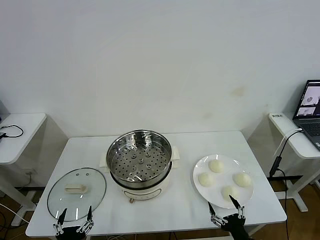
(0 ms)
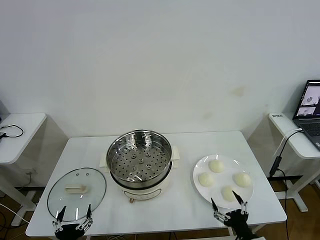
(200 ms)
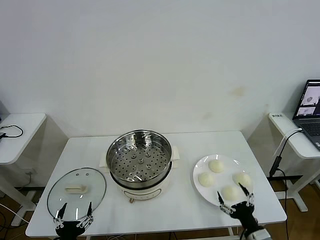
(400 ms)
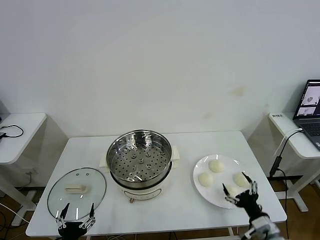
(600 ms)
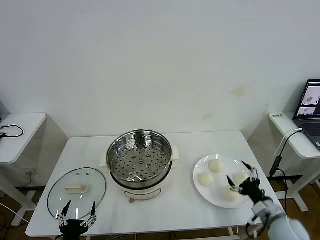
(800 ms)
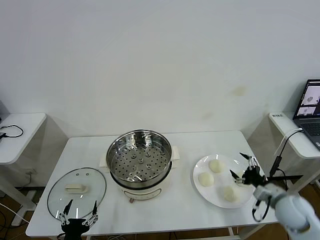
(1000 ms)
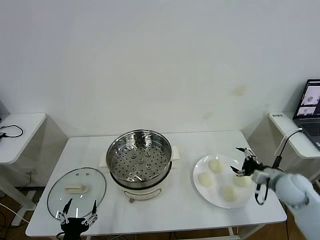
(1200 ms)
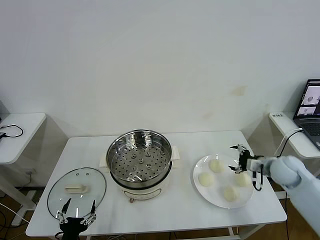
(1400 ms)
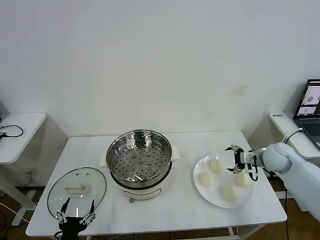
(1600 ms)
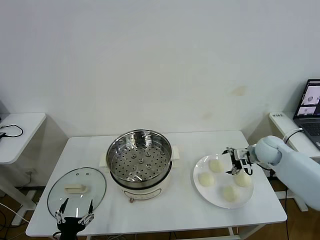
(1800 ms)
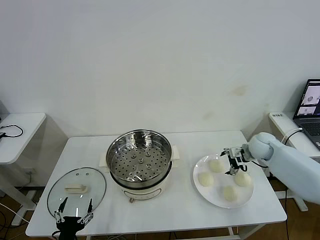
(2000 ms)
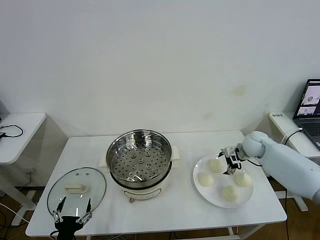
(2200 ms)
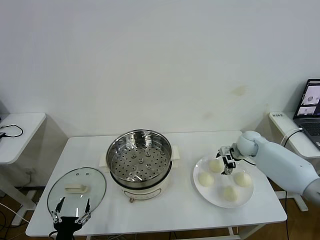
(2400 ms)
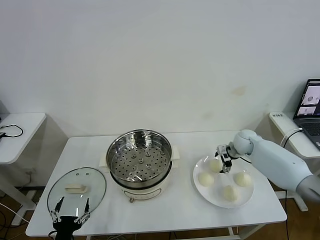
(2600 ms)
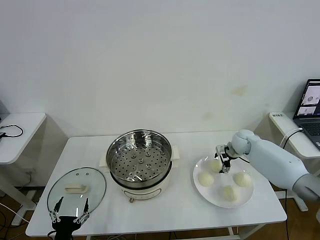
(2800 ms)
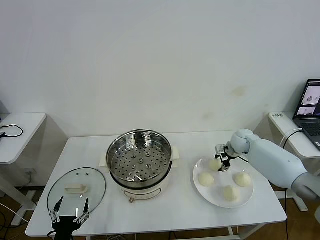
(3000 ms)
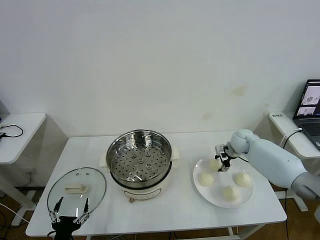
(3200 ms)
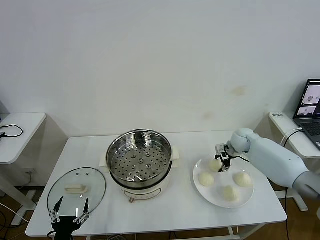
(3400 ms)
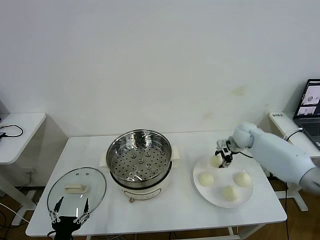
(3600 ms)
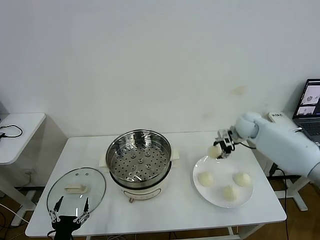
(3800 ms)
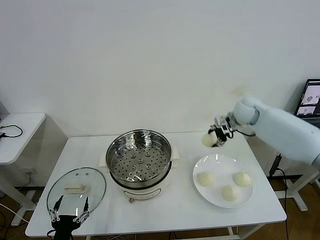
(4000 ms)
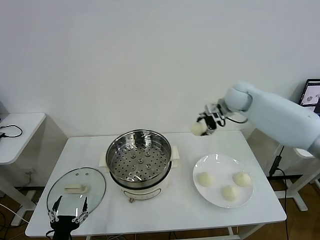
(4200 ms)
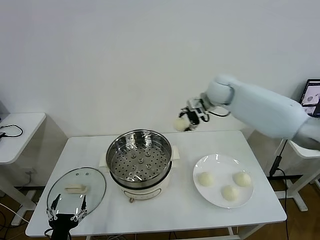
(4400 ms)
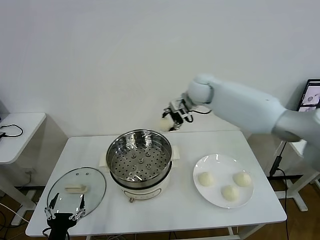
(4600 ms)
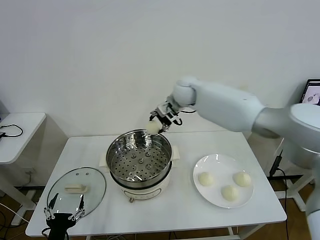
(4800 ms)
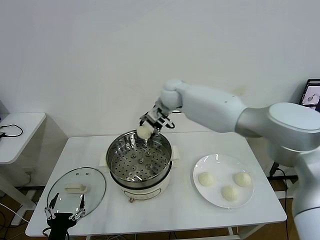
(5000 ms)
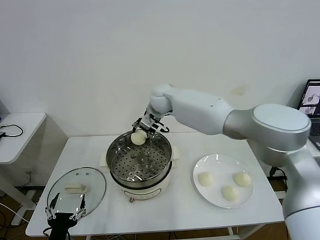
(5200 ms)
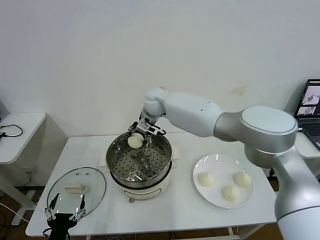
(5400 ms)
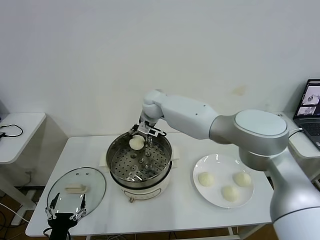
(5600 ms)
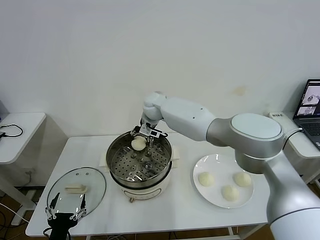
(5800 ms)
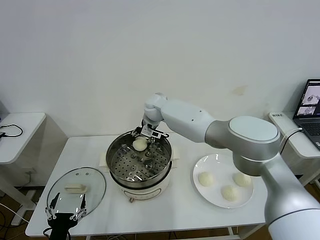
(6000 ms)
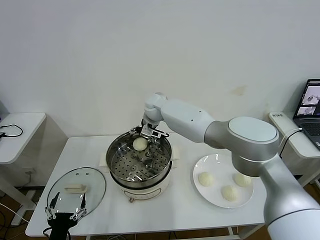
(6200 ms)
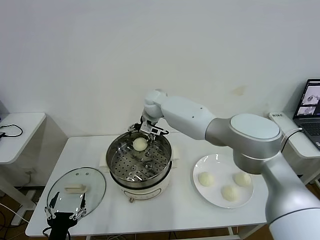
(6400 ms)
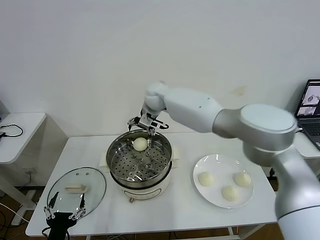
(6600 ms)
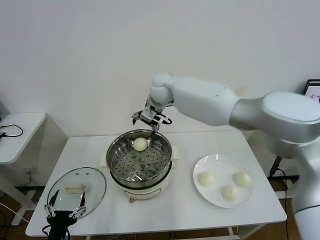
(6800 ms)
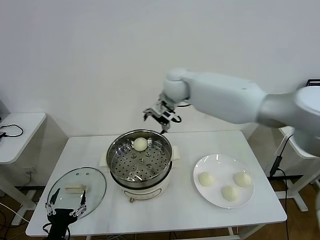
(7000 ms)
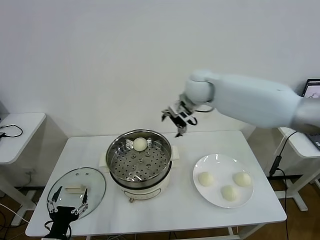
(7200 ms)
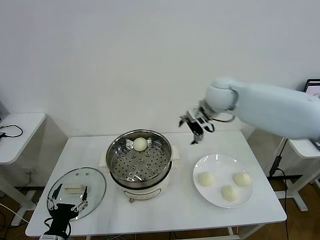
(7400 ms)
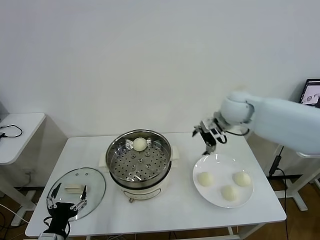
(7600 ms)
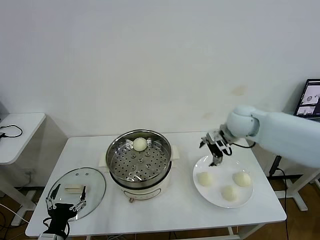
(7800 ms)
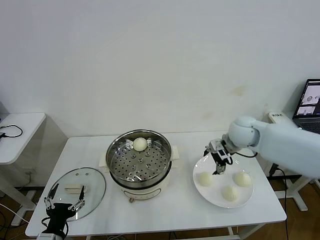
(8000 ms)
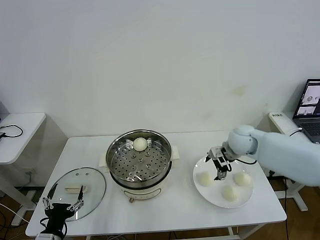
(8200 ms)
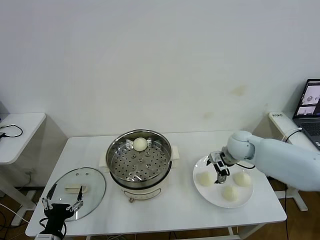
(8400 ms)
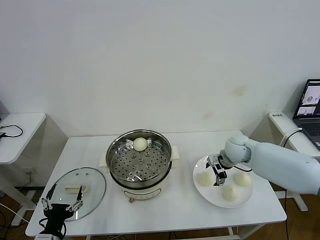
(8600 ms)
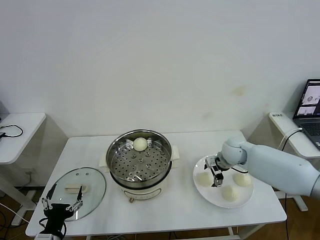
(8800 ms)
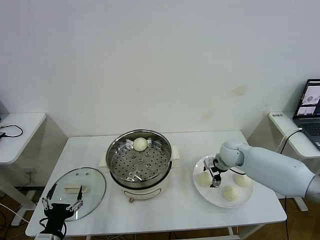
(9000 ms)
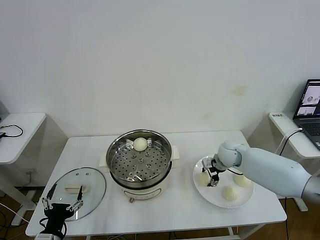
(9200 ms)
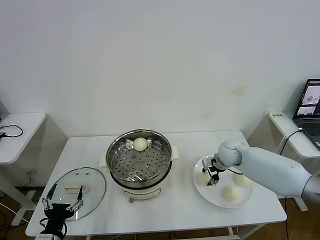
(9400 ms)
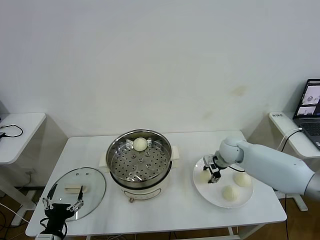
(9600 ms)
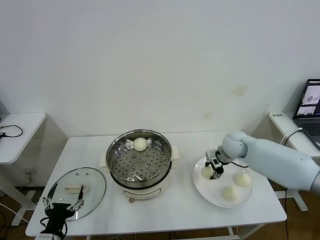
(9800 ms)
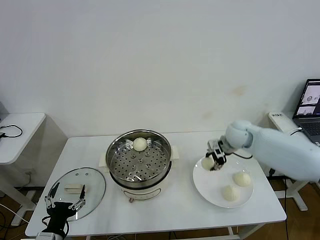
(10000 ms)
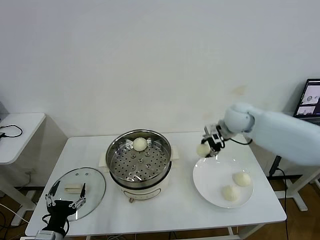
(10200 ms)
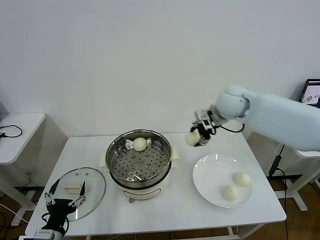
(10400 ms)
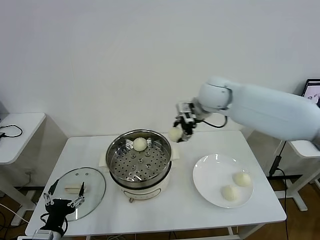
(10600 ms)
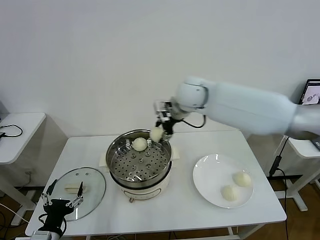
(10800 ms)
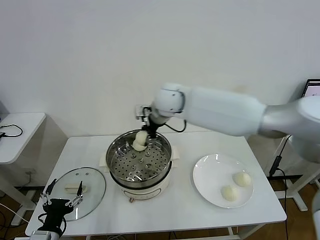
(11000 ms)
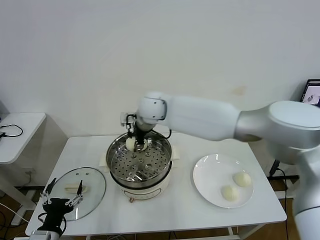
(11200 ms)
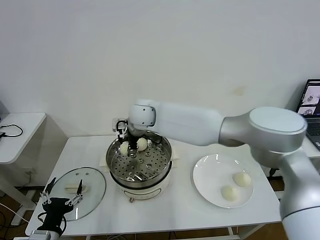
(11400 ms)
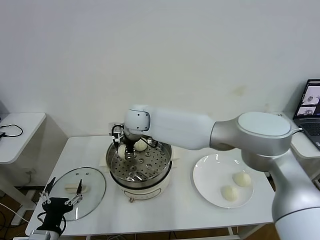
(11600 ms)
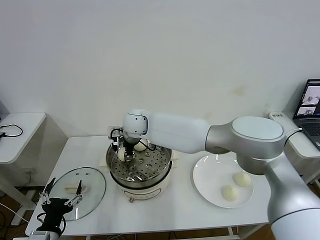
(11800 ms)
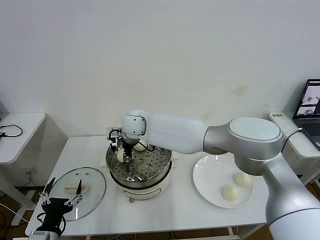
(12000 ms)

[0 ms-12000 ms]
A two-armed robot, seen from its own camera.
Task of the whole recording: take steamed baozi put them in steamer then cover it.
Step, 0 ms to 2800 ms: Grasp the baozi in the plate with right gripper.
Step, 3200 ms to 6000 ms: Place the baozi on the steamer with right gripper.
Step, 6400 ms to 9200 ms: Grasp the baozi in the plate with right gripper.
1600 ms to 3000 ms: The right gripper shifts some 10 cm forward and to the left, and closes.
3000 ms to 4400 ms: The right gripper moves upward and to the left, about 30 cm.
4400 ms to 6000 ms: The right gripper shifts roughly 20 cm to the left and downward, and opens up.
6000 ms to 7600 ms: The right gripper travels to the right and backward by roughly 30 cm.
7600 ms to 9000 ms: The right gripper is displaced downward by about 15 cm, and closes.
9000 ms to 10400 ms: The right gripper heads upward, covering approximately 25 cm, and closes its fingers.
10400 ms to 12000 ms: The right gripper shifts some 25 cm to the left, and opens up.

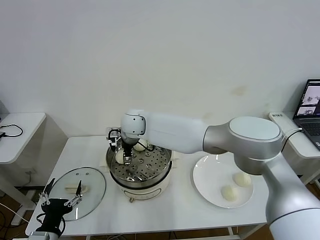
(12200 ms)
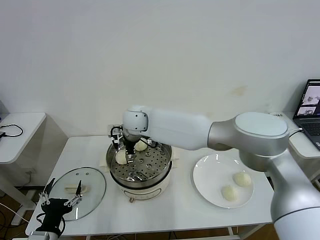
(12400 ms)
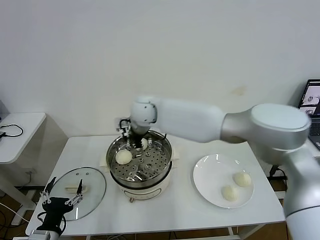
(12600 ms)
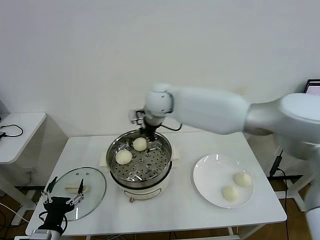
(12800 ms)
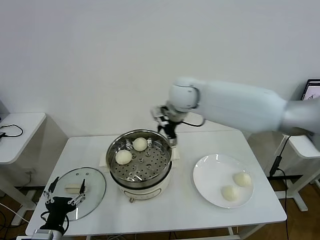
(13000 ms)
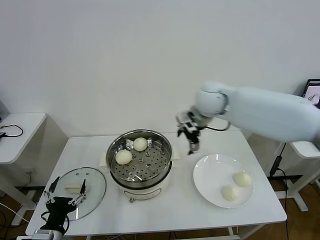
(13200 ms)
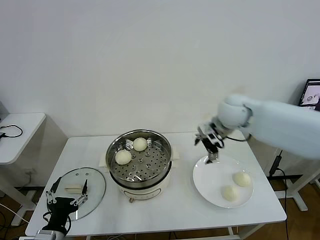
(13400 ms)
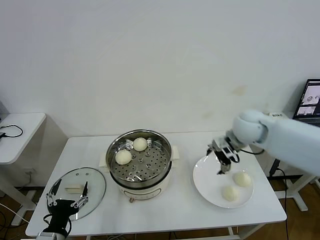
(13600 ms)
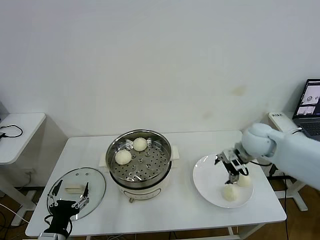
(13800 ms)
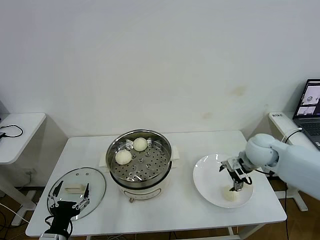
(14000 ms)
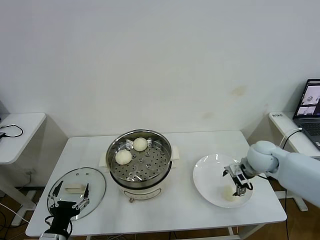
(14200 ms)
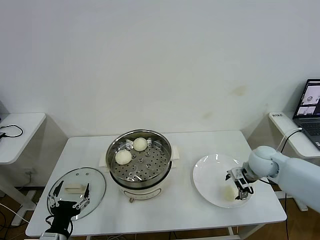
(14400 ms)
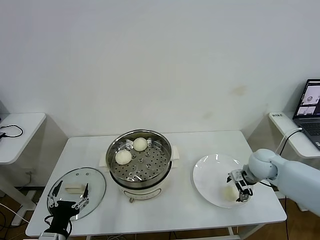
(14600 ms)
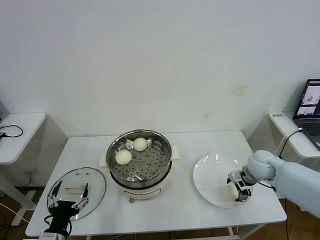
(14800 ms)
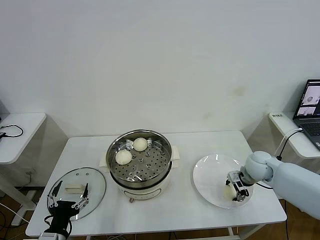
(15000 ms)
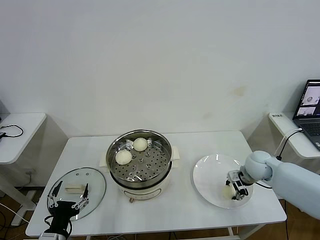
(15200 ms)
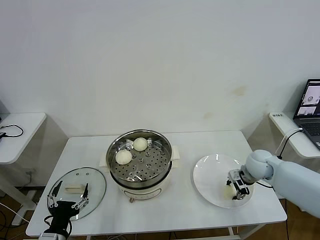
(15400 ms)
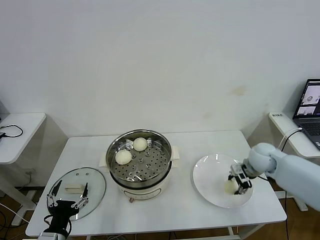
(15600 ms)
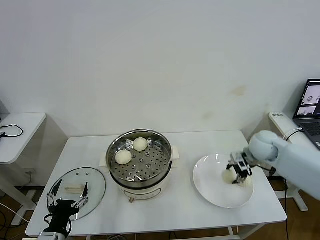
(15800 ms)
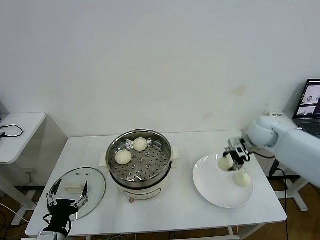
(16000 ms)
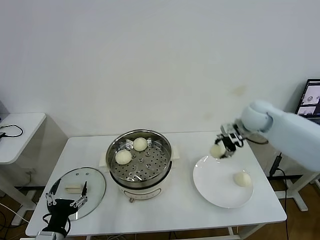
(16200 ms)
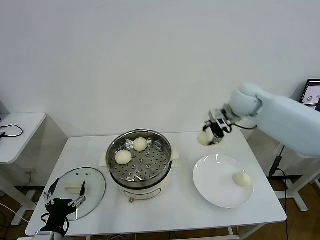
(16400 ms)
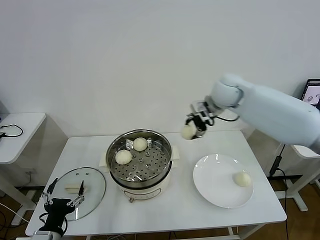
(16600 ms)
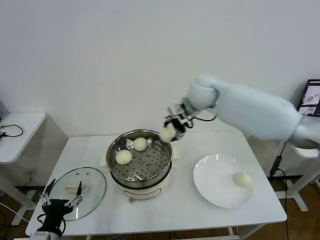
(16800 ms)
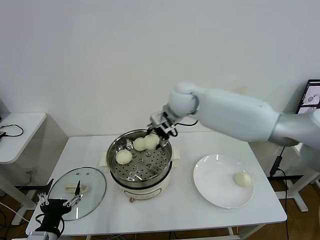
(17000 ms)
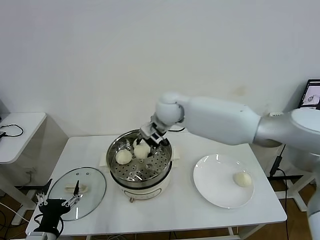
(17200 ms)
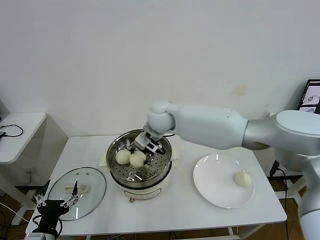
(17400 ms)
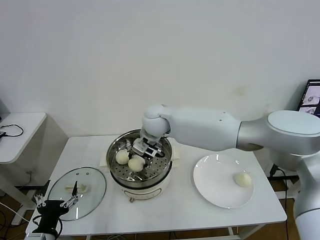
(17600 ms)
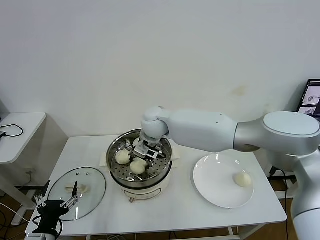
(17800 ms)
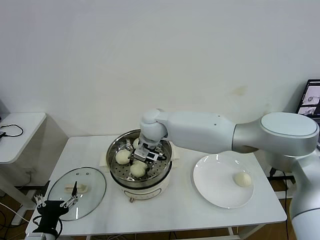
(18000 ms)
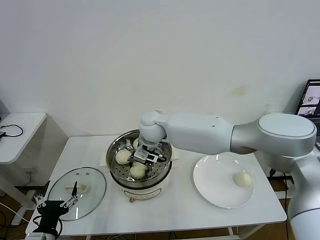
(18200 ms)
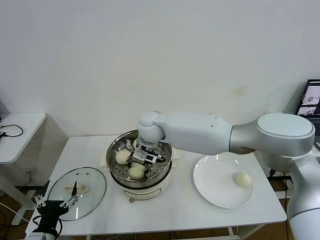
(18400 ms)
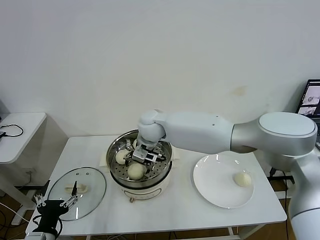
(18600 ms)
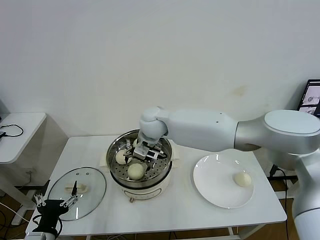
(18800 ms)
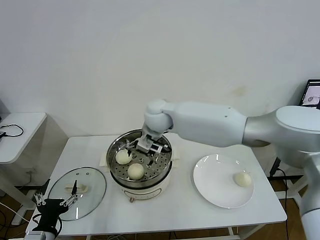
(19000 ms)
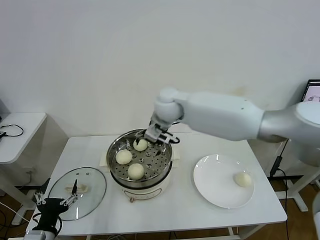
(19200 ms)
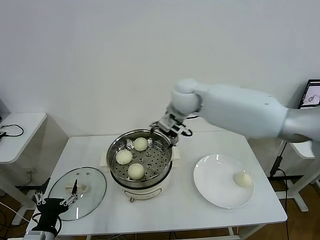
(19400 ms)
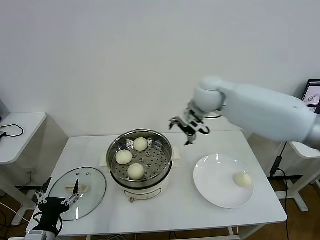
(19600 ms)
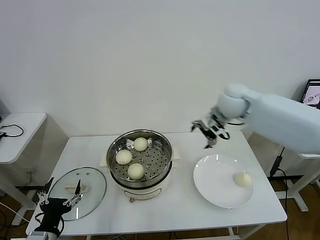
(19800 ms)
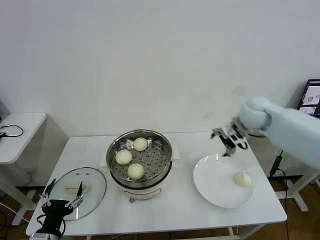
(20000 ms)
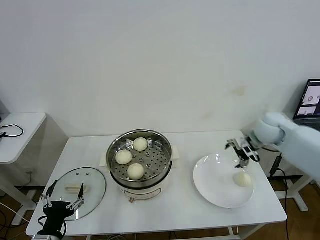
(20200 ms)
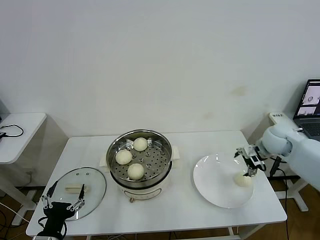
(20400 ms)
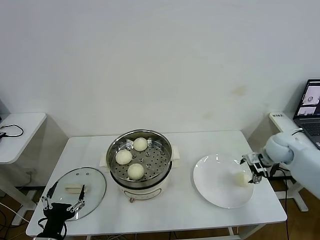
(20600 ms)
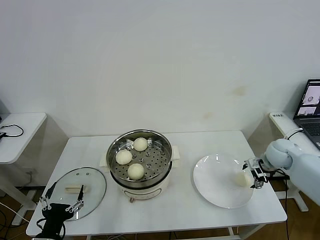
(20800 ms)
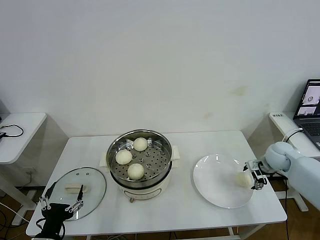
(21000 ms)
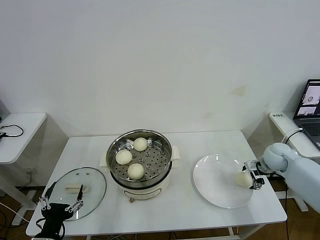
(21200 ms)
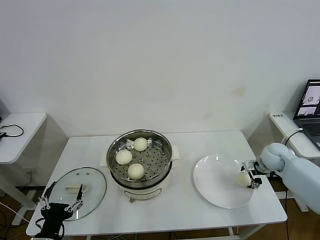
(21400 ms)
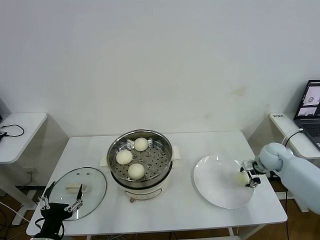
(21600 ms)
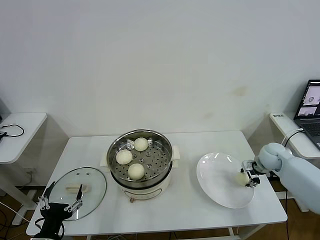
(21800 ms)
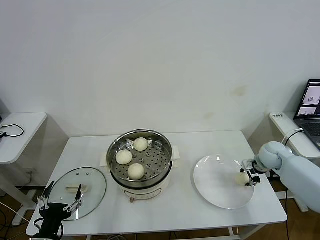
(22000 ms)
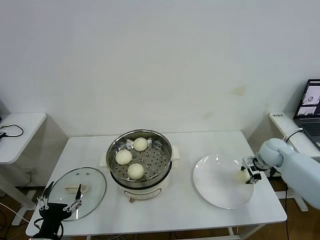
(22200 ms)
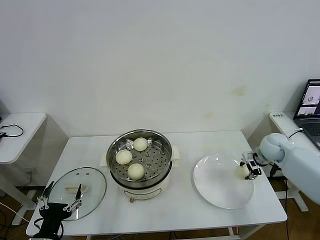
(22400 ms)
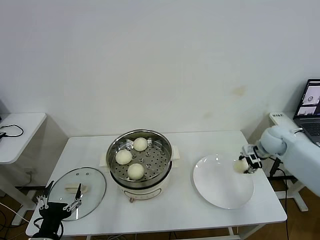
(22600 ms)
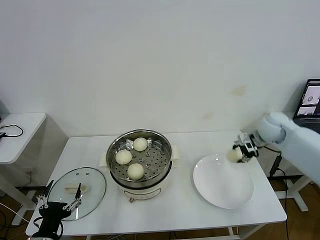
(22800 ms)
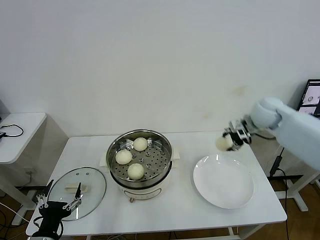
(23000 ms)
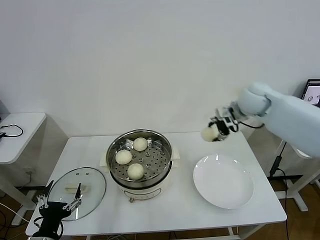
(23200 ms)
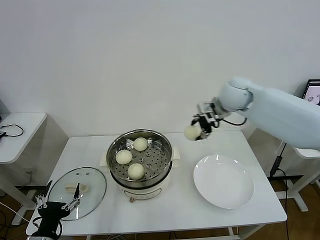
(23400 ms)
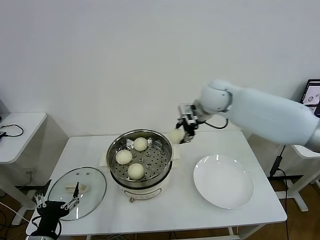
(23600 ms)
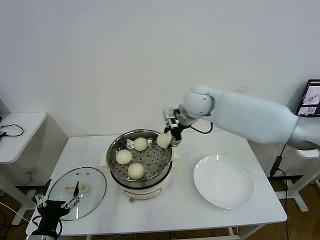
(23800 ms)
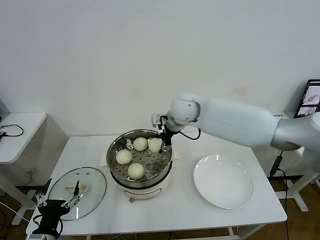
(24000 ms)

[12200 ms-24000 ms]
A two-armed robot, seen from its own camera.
Task of the whole recording: take steamed baozi put them in steamer then cover it.
Step, 12400 ms to 15200 ms: Grasp the baozi in the plate with right gripper.
Step, 15400 ms to 18600 ms: Place the baozi on the steamer with right gripper.
Step, 18800 ms to 21600 ms: Grasp the baozi in the plate with right gripper.
12200 ms to 13600 ms: The right gripper travels to the right by roughly 35 cm.
13600 ms to 15200 ms: The right gripper shifts roughly 15 cm downward and to the right, and closes.
15200 ms to 16600 ms: The right gripper heads upward, to the left and forward, covering roughly 30 cm.
16600 ms to 18200 ms: The right gripper travels to the left and downward by roughly 20 cm.
18200 ms to 19600 ms: The right gripper goes roughly 25 cm to the right and upward, and opens its fingers.
19600 ms to 21000 ms: The right gripper goes approximately 35 cm to the right and downward.
21000 ms to 22600 ms: The right gripper shifts approximately 5 cm upward, and closes.
22600 ms to 24000 ms: The right gripper moves to the left, some 35 cm.
